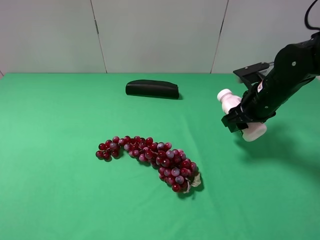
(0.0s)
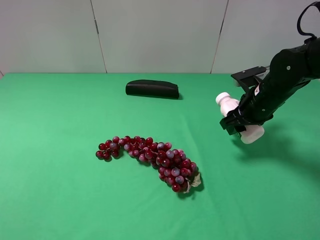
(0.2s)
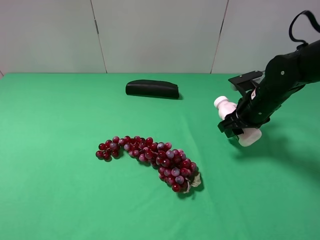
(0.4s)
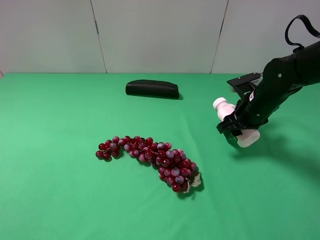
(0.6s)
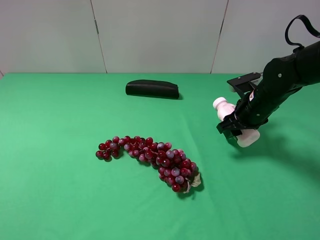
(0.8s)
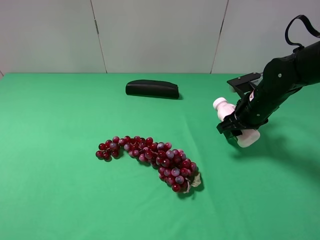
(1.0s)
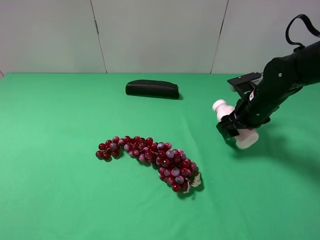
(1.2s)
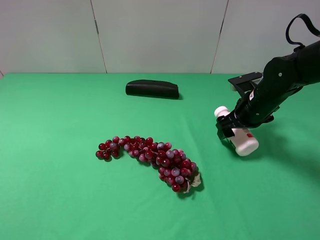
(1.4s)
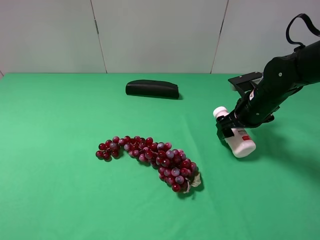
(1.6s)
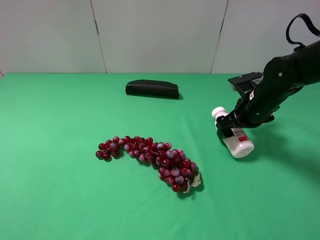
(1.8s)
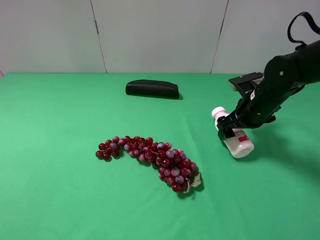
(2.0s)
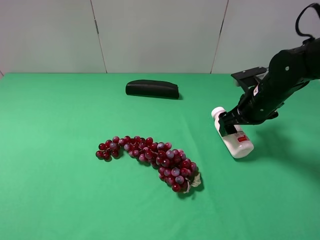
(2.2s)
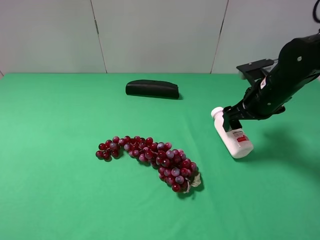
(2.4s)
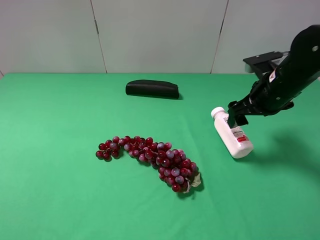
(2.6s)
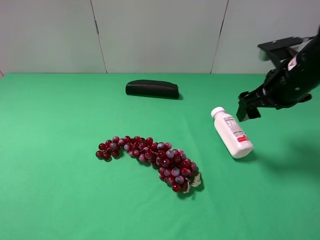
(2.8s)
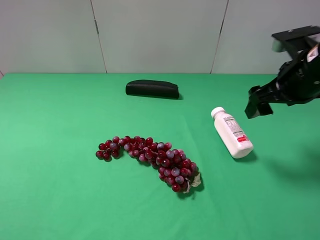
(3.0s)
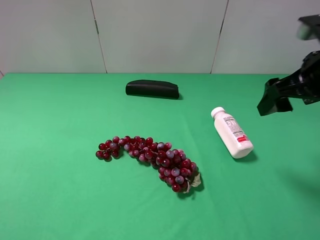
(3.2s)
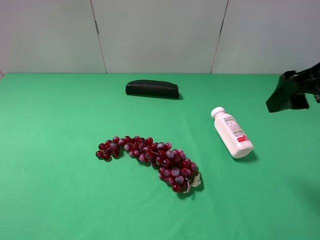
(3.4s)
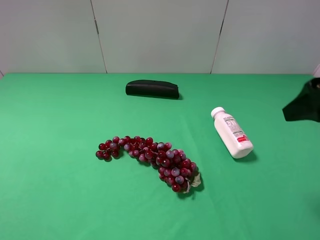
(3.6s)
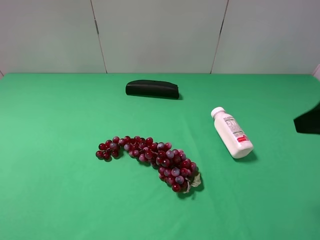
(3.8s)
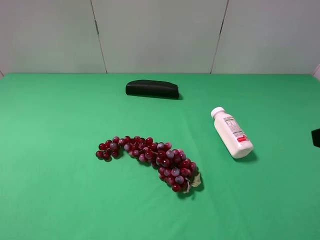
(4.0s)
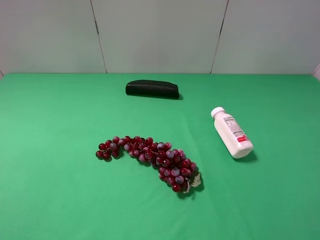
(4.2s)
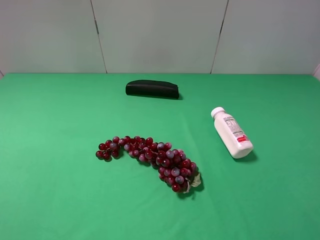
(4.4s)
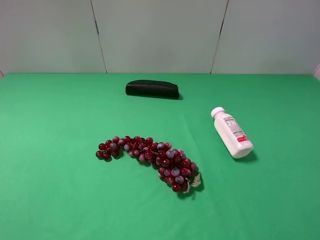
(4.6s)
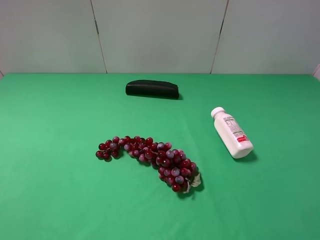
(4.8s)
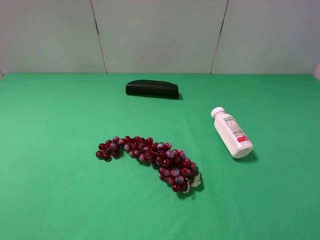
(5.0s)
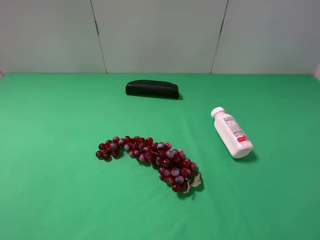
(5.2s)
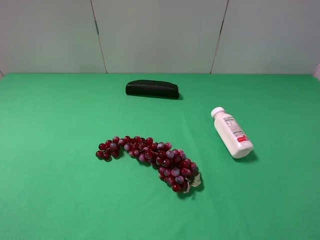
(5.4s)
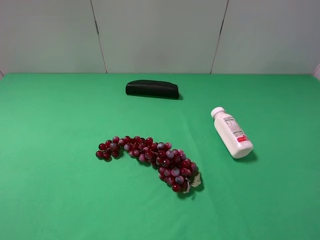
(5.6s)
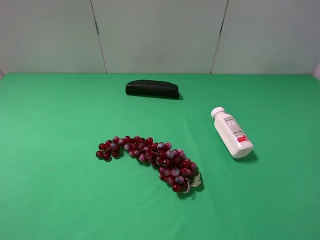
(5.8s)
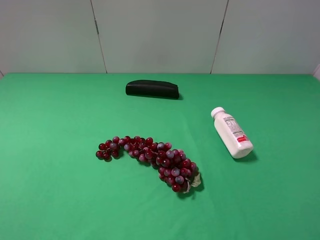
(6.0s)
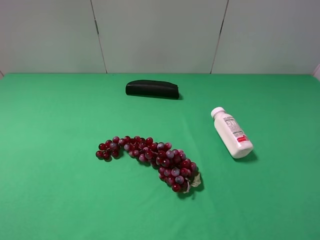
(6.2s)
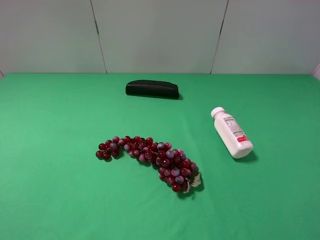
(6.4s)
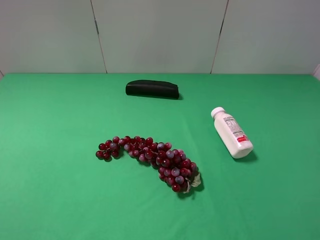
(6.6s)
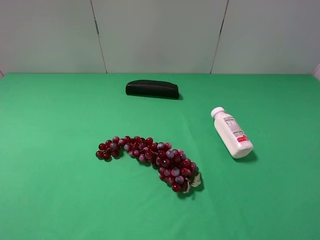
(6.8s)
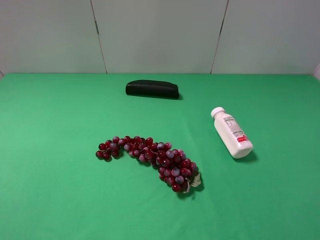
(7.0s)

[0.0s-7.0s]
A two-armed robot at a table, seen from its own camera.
Task of the whole recording: use the left gripper to pick up the item and transfer it from the left gripper to the right gripper.
Step, 0.0s to 2.2s: The right gripper places milk on the right side of the table.
0.0s to 1.4s: The right gripper opens up.
1.4s to 2.8s: The right gripper heads upward, covering approximately 10 cm.
2.8s to 4.2s: The right gripper shifts about 20 cm backward.
